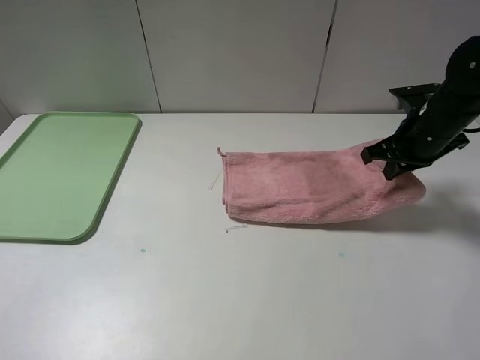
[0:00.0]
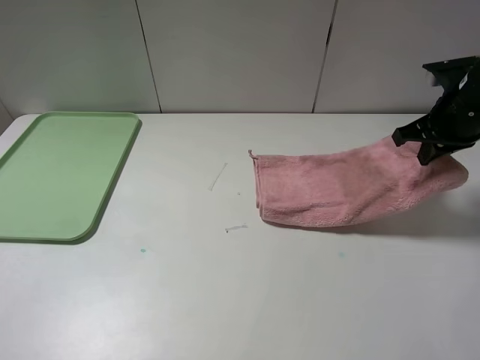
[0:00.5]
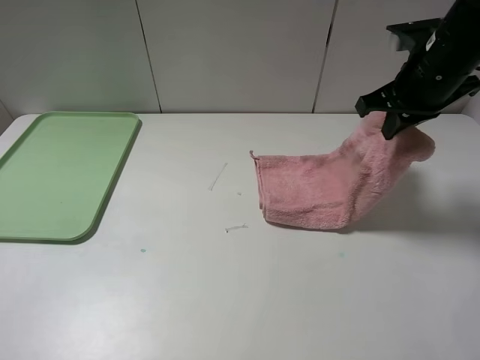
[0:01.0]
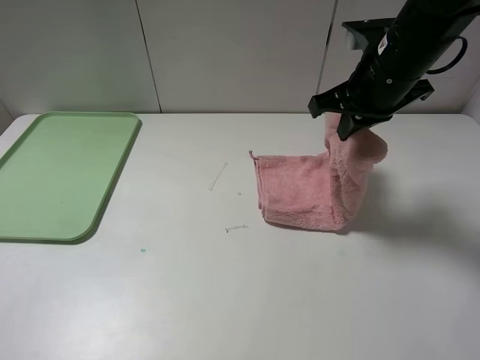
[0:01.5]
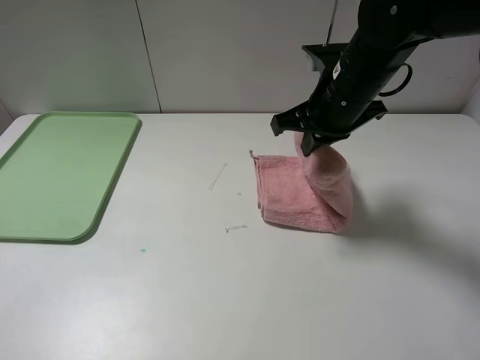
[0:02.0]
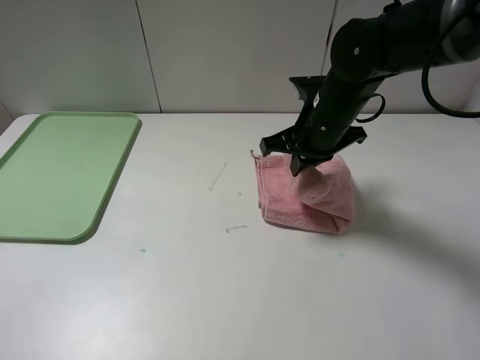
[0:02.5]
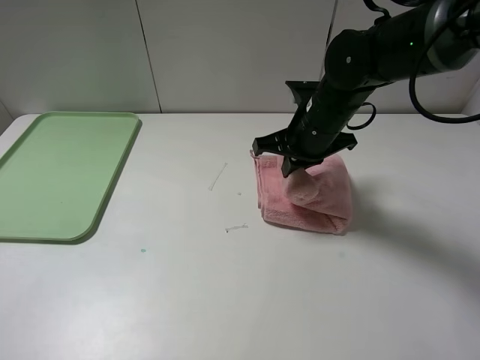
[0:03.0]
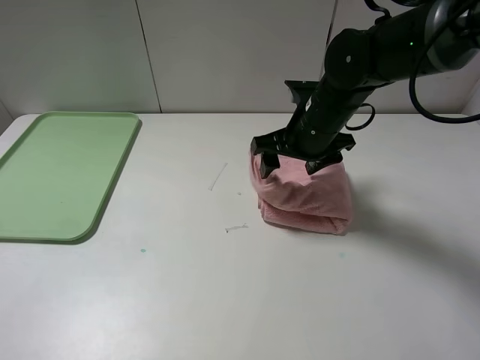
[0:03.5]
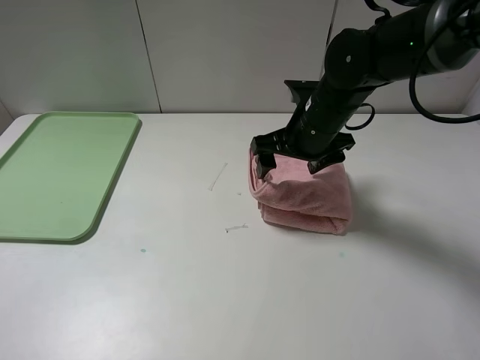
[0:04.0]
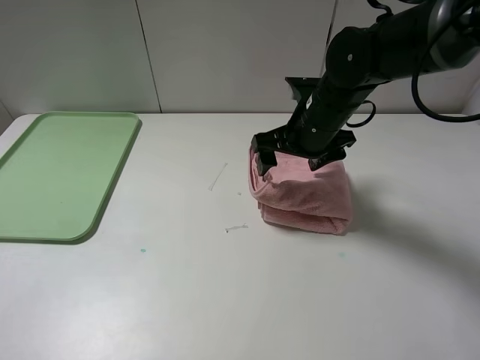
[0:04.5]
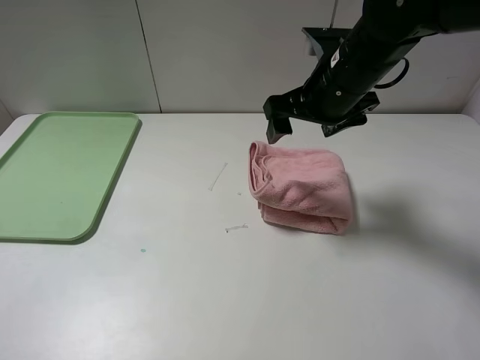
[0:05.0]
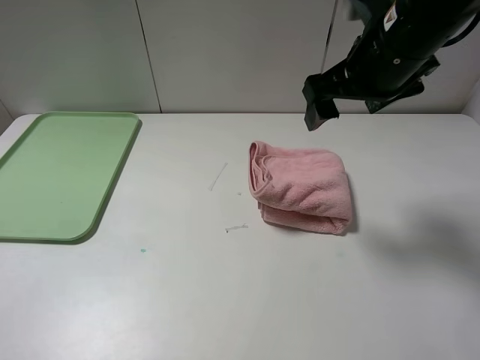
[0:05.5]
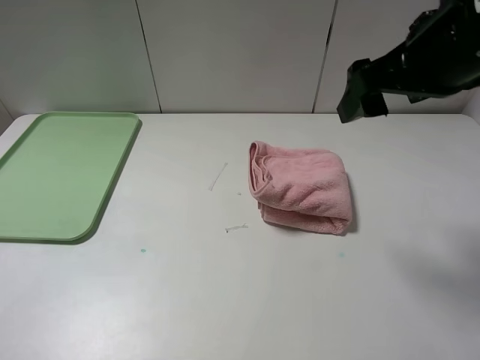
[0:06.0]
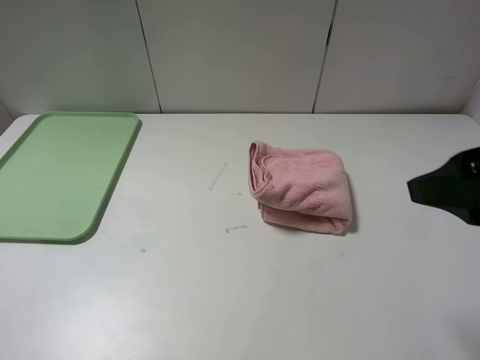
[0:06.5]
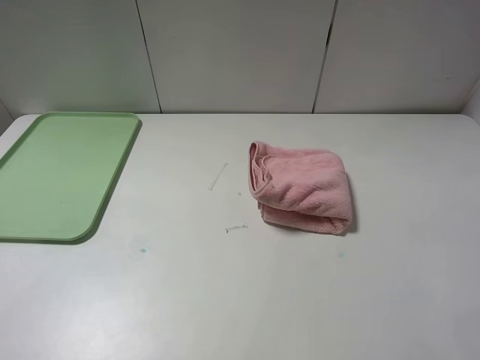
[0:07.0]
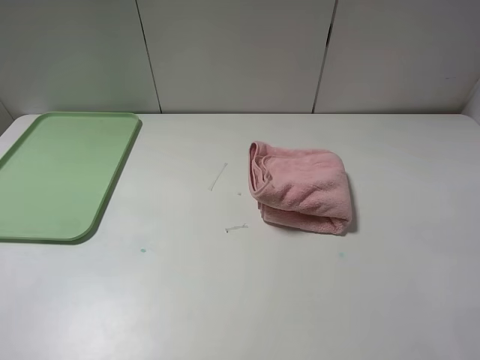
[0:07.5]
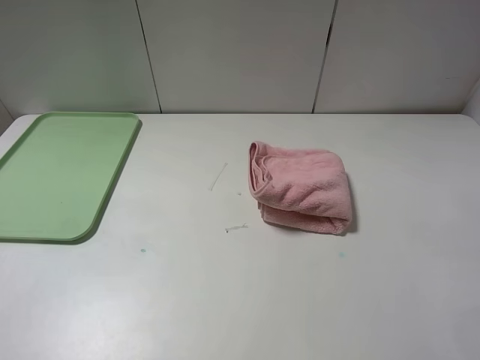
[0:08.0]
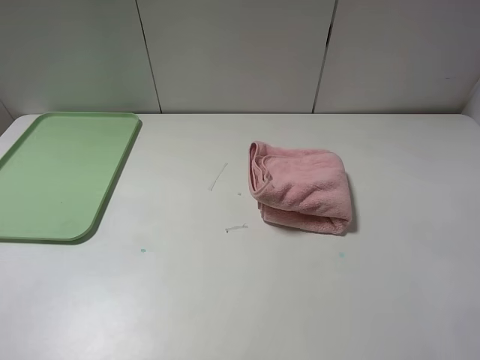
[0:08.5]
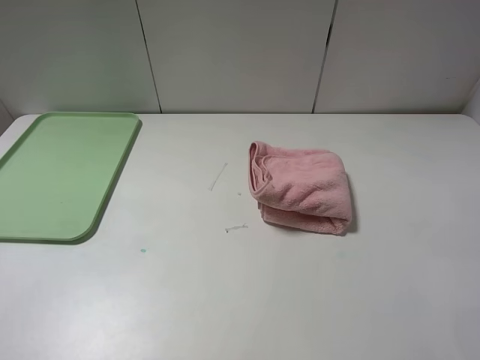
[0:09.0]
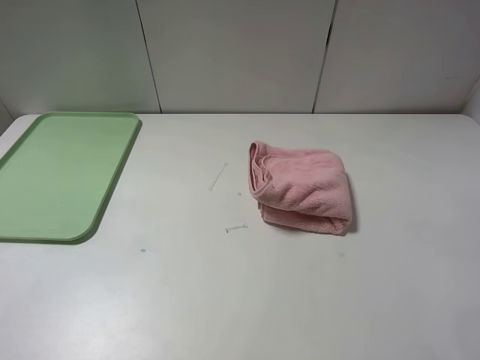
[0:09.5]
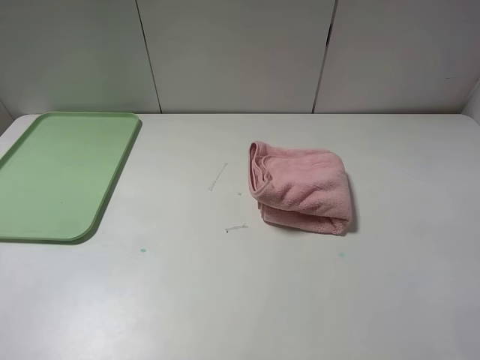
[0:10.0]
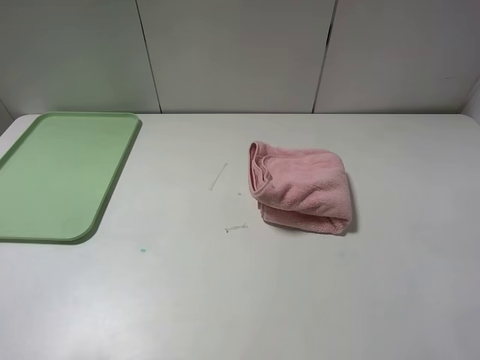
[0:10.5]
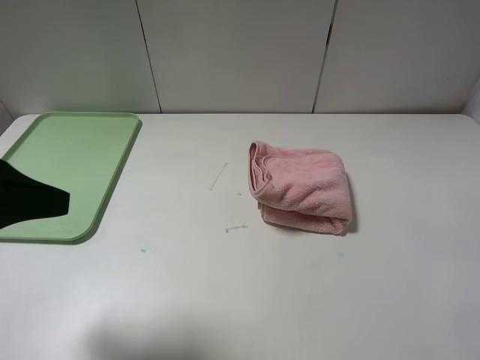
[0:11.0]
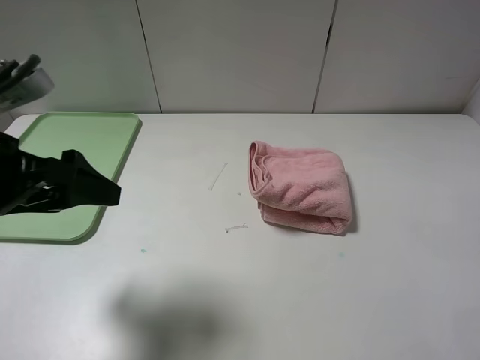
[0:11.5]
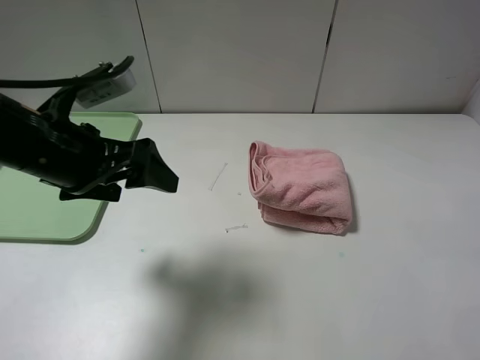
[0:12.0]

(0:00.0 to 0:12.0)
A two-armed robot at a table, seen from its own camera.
Step, 0:00.0 - 0:03.5: Fold the pink towel from right to left with right gripper.
0:00.0 - 0:02.0: The right gripper goes approximately 15 cm to the left.
0:02.0 - 0:04.0: The right gripper shifts about 5 cm downward, and opens its fingers.
0:04.0 - 0:06.0: The right gripper is displaced upward, backward and to the right by some 20 cm.
0:06.0 - 0:08.0: The right gripper heads backward and to the right, covering some 25 cm.
0:08.0 - 0:10.0: Both grippers stay about where they are.
0:10.0 - 0:12.0: The left gripper goes about 25 cm forward and to the right.

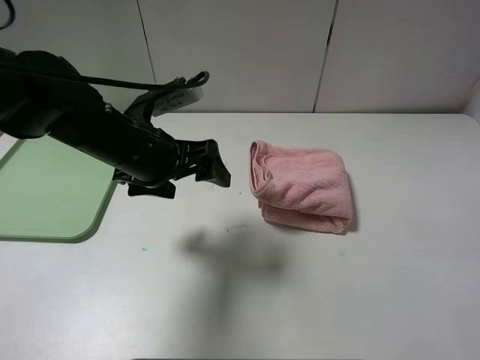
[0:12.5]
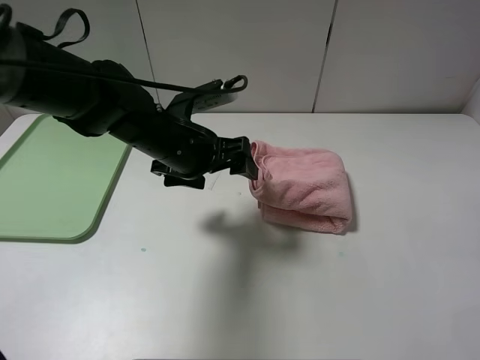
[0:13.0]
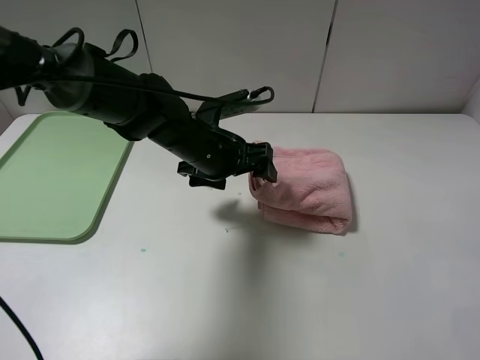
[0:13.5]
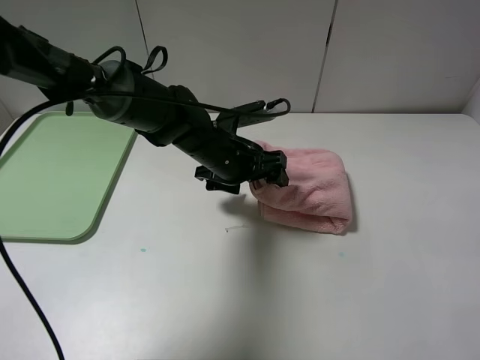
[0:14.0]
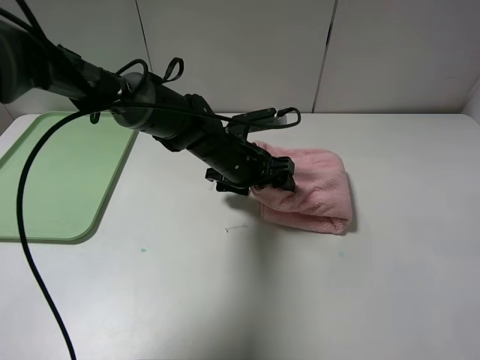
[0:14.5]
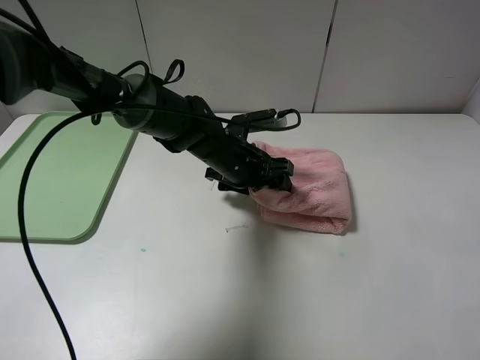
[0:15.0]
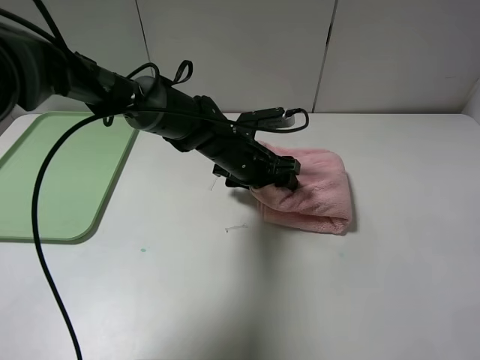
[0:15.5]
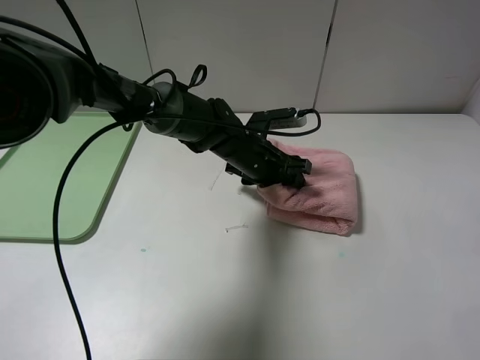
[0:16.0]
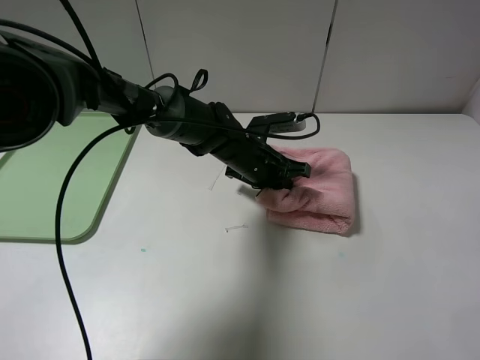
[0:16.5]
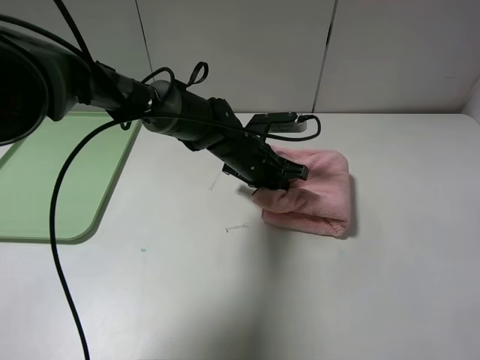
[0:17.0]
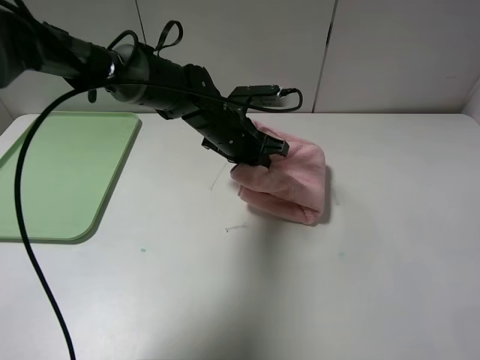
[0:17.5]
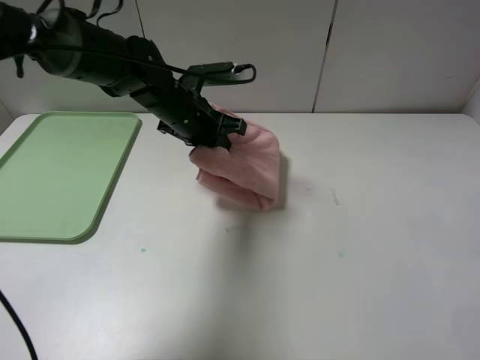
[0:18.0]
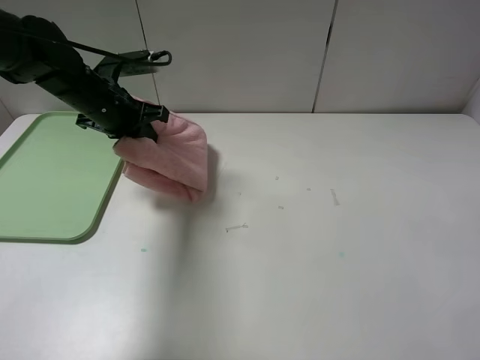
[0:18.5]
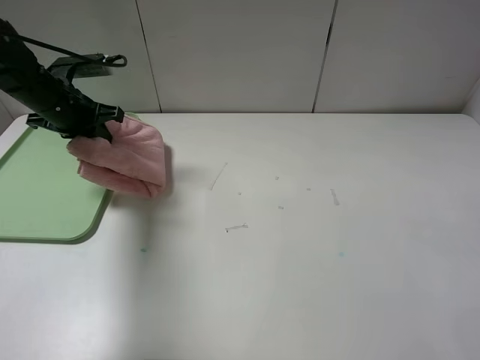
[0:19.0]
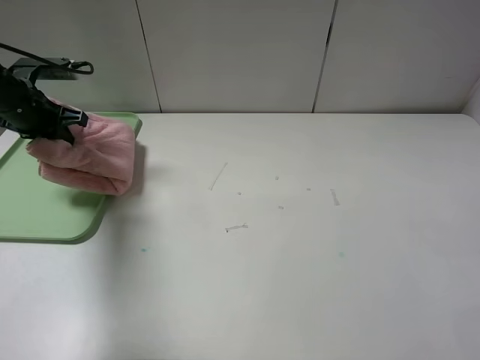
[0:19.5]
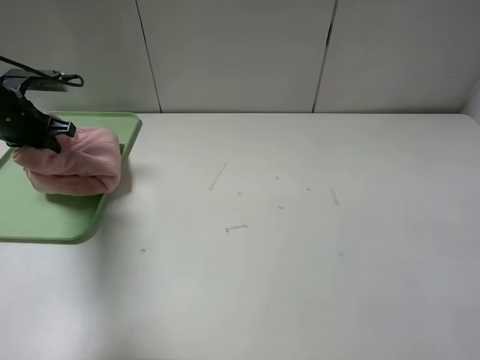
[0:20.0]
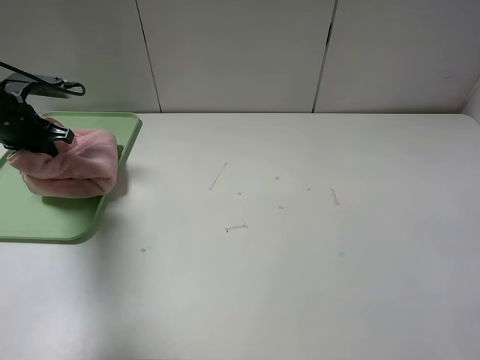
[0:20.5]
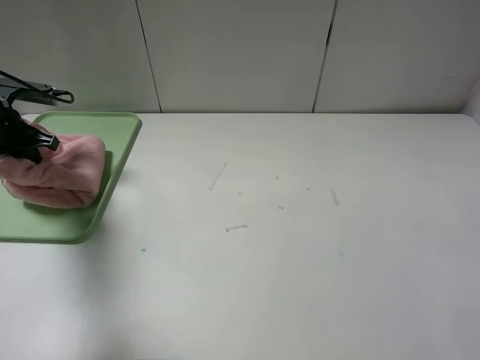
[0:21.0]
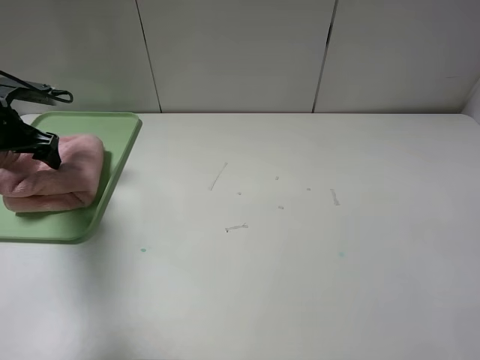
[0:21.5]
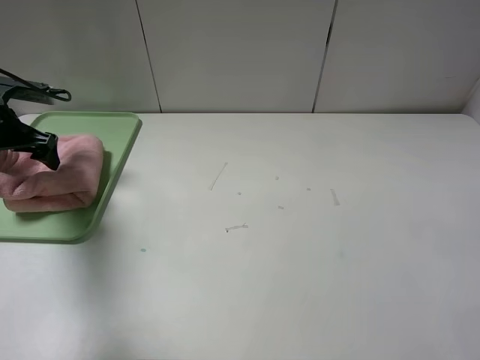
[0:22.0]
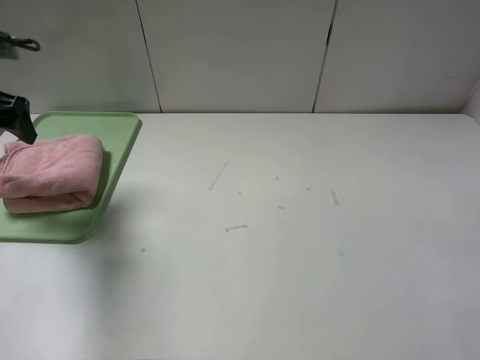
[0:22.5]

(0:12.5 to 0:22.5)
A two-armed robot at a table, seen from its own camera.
Step, 0:12.5 - 0:22.0: Place the folded pink towel on the tray with the left gripper.
0:12.5 - 0:14.5: The left gripper heads to the right, downward and forward, covering about 15 cm.
0:14.5 - 0:16.5: The left gripper closes up.
0:16.5 - 0:18.5: The left gripper is displaced to the left and upward by some 25 cm.
0:18.5 - 0:20.5: The left gripper is displaced to the left by about 15 cm.
0:20.5 - 0:22.5: The left gripper shifts about 10 cm upward and backward, and opens.

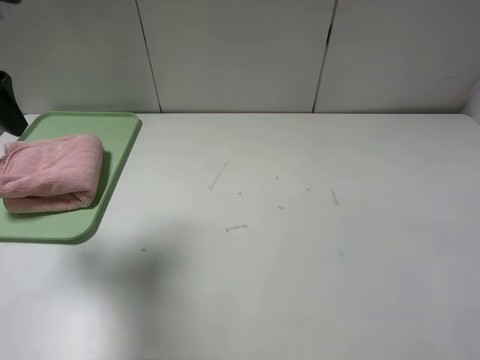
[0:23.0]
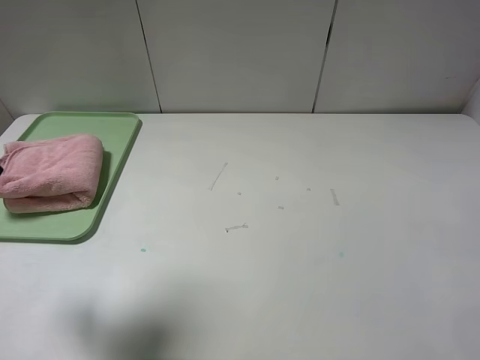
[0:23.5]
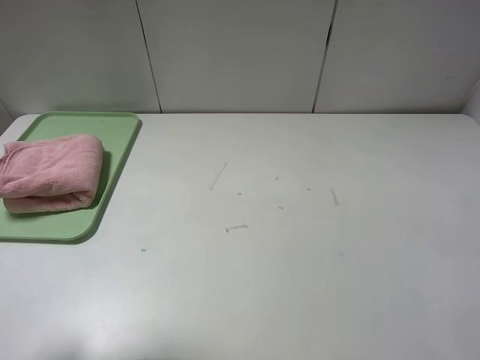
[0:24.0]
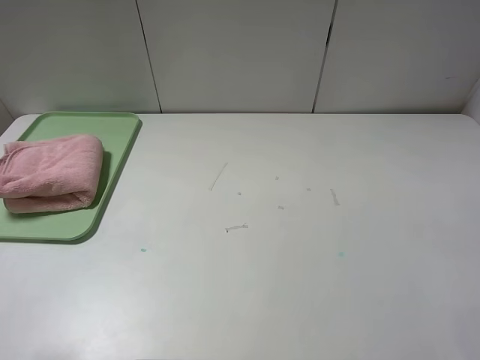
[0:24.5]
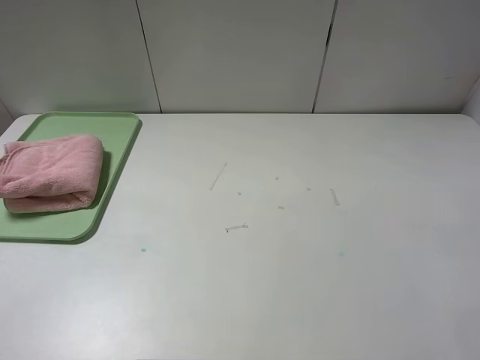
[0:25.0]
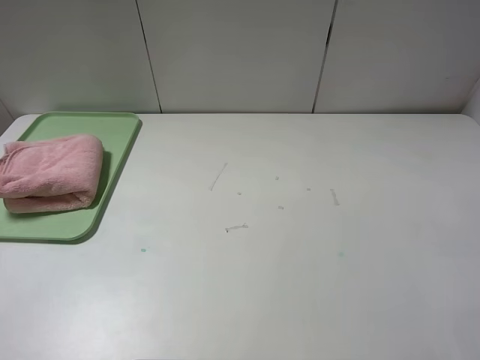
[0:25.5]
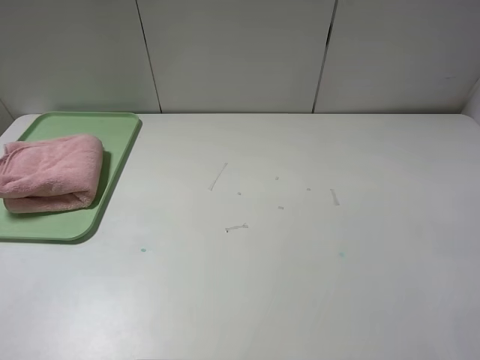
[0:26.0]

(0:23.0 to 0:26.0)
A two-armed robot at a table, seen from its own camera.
0:23.0 - 0:24.5: The left gripper goes roughly 20 cm backward.
